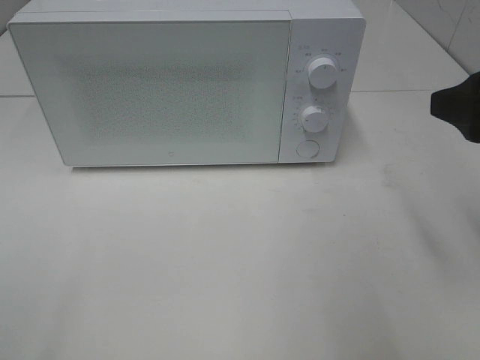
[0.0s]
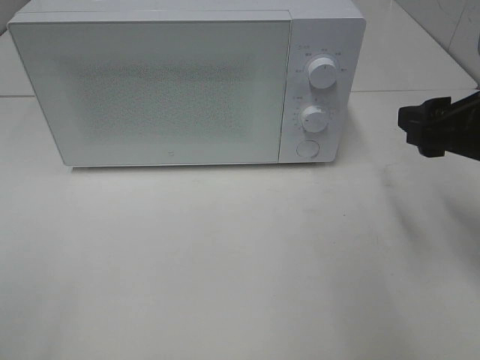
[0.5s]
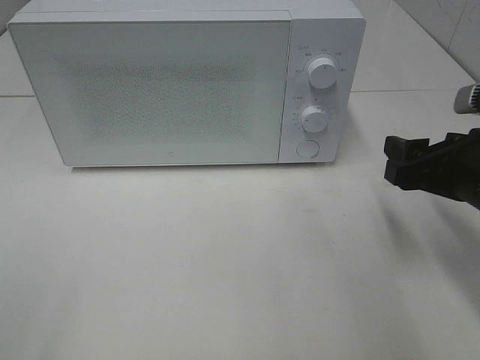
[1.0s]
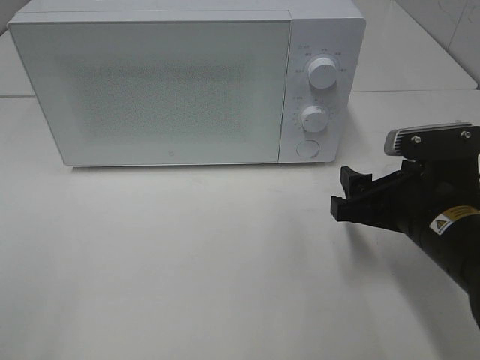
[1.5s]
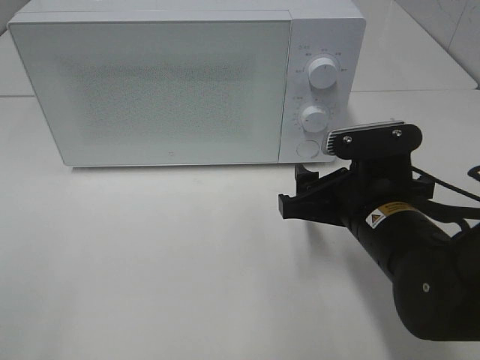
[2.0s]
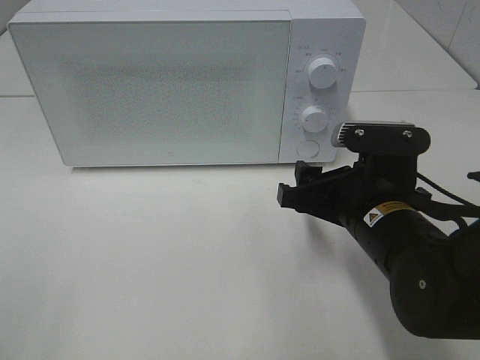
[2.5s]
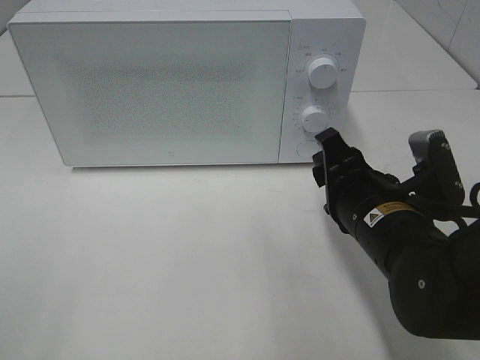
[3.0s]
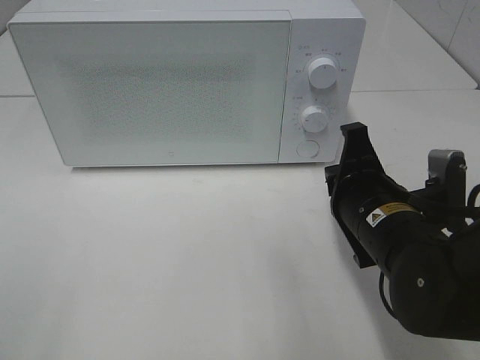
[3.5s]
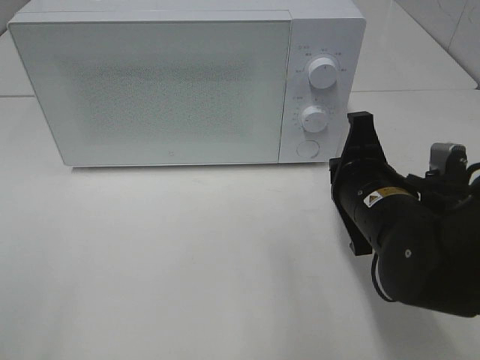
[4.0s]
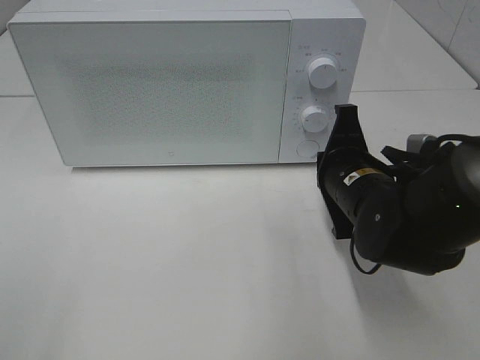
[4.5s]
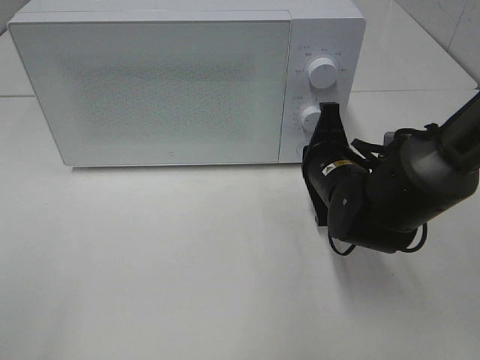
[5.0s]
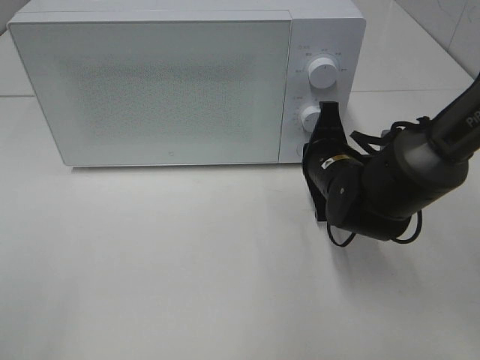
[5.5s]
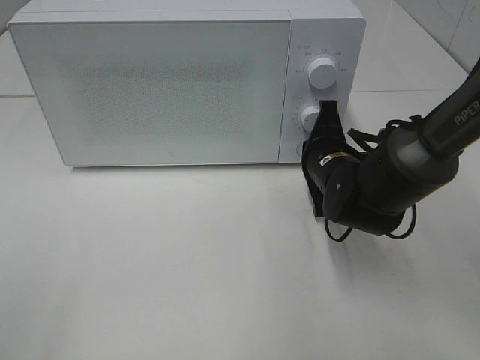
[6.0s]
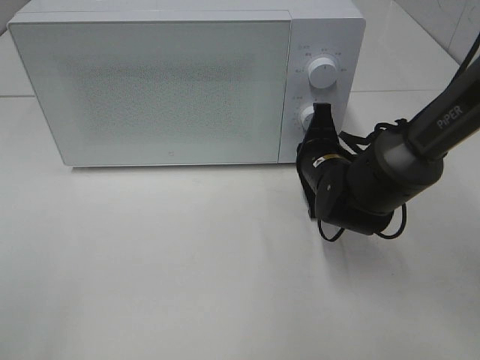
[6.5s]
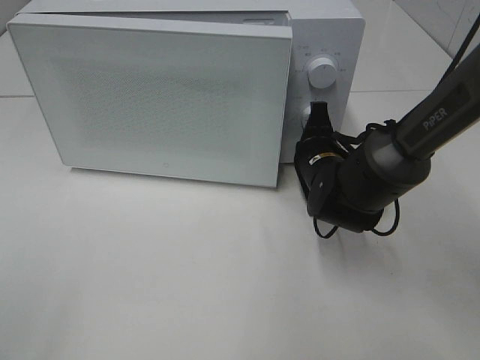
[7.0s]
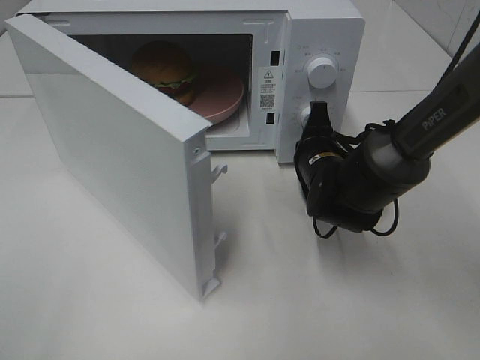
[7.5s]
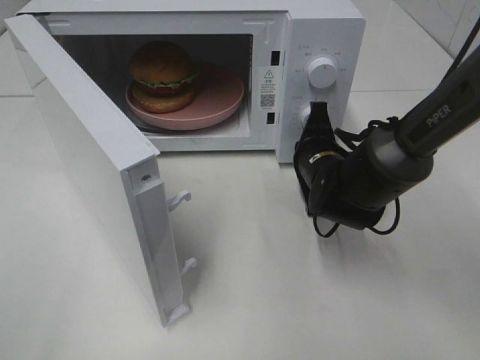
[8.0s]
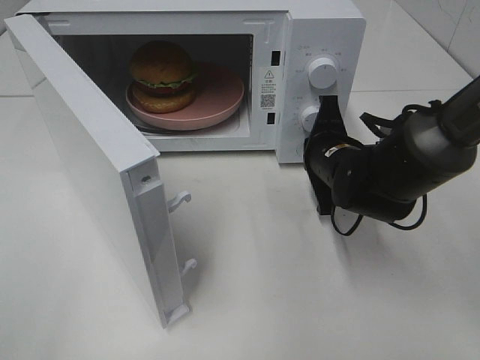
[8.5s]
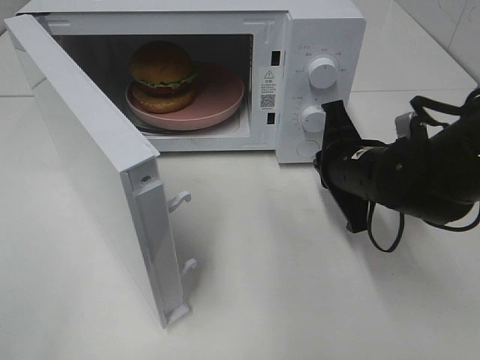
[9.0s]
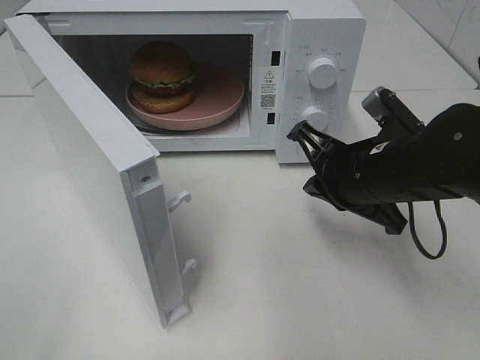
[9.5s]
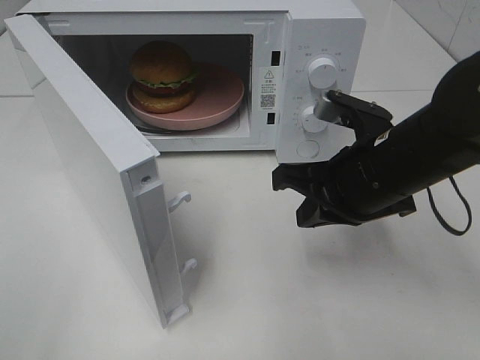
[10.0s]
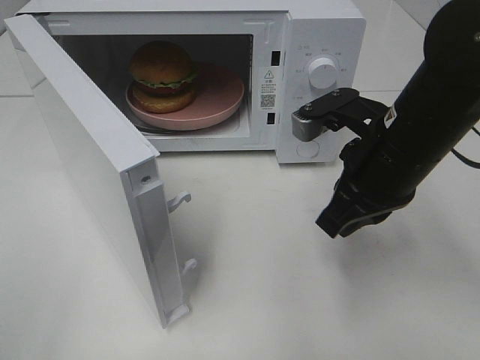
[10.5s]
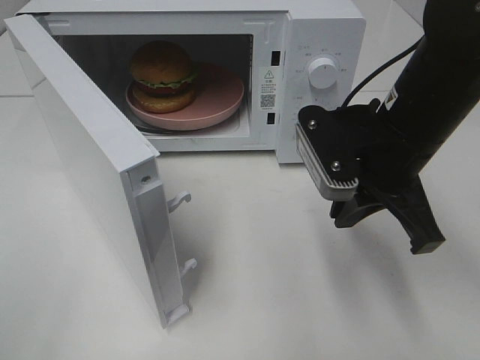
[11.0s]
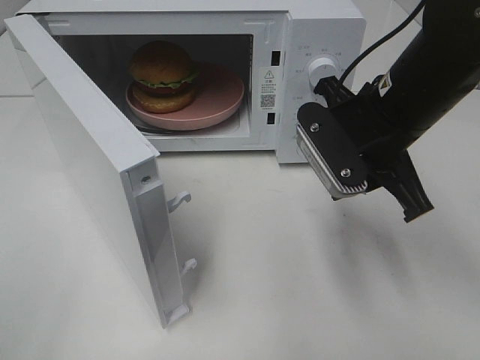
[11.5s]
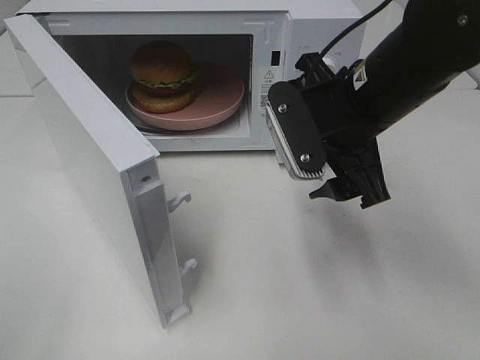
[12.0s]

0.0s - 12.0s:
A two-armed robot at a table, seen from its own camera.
Task of the whole recording: Heat the burger.
Step, 0.0s - 8.5s: Right hand: press the switch.
0.0s - 2.0s: The right gripper shifts some 20 cm downward and to the left.
2.0s - 4.0s: The right gripper closes its fingers.
4.0s - 6.0s: The right gripper goes roughly 10 cm forward.
8.0s - 10.0s: The right gripper shifts about 15 cm backward and upward.
10.0s - 12.0s: The right gripper shifts roughly 5 cm upward, and opens its fingers.

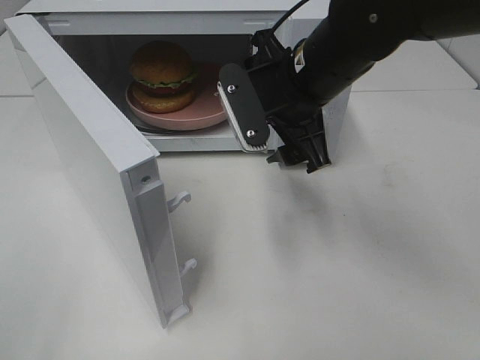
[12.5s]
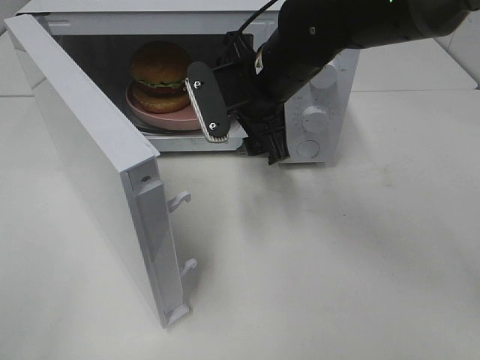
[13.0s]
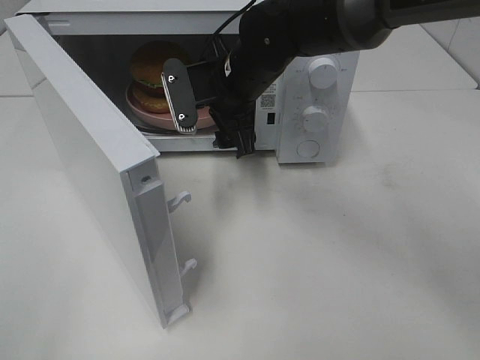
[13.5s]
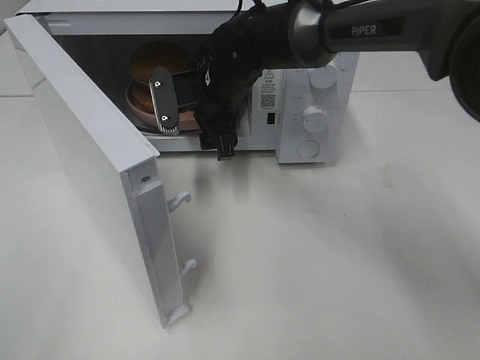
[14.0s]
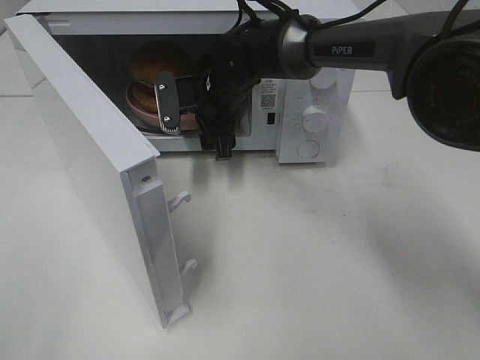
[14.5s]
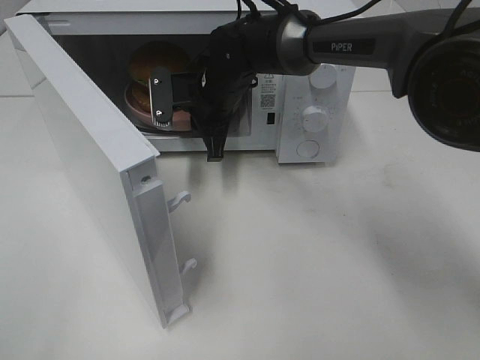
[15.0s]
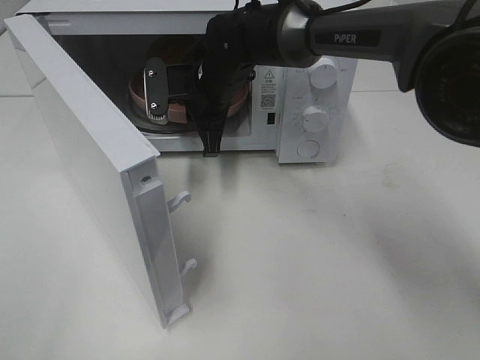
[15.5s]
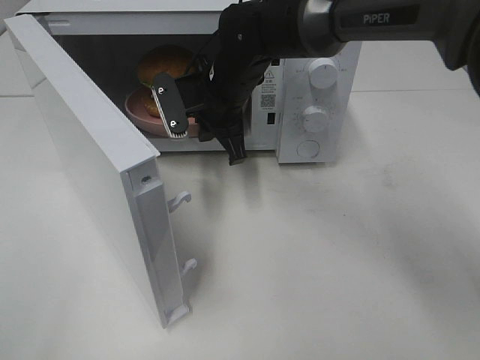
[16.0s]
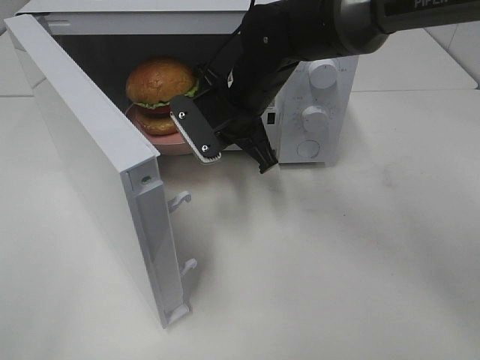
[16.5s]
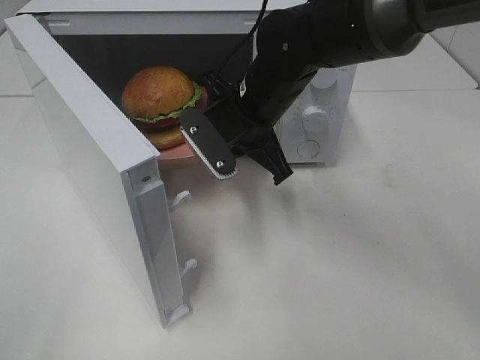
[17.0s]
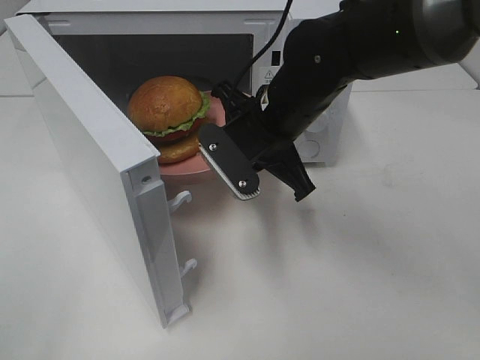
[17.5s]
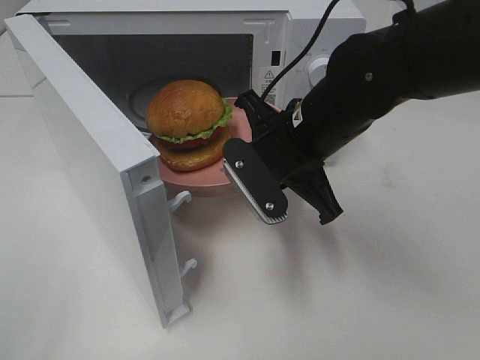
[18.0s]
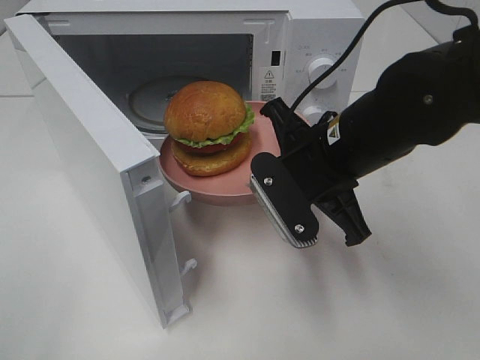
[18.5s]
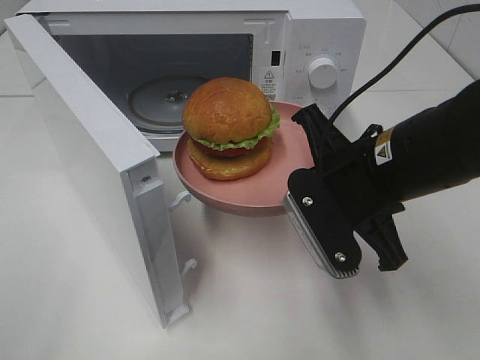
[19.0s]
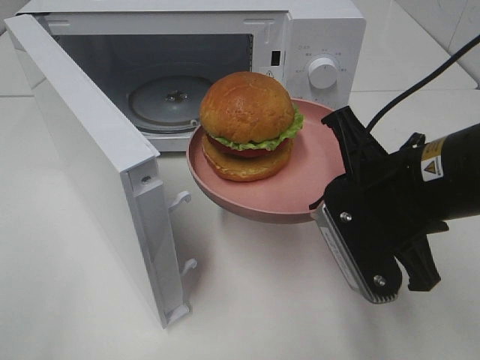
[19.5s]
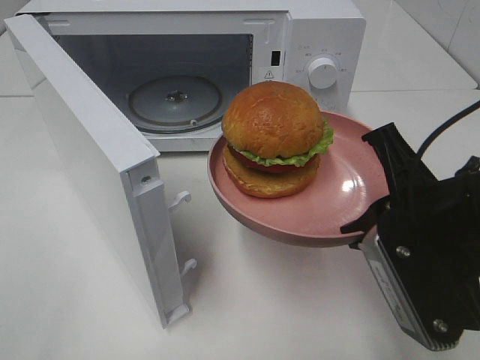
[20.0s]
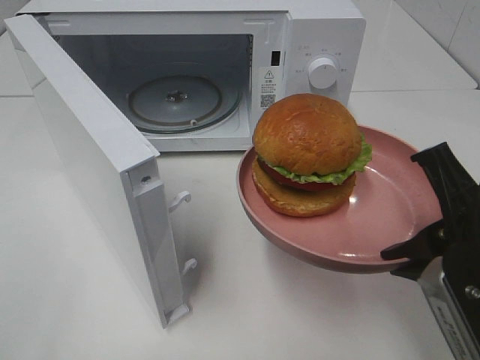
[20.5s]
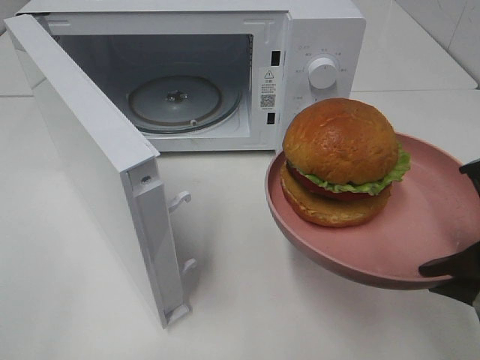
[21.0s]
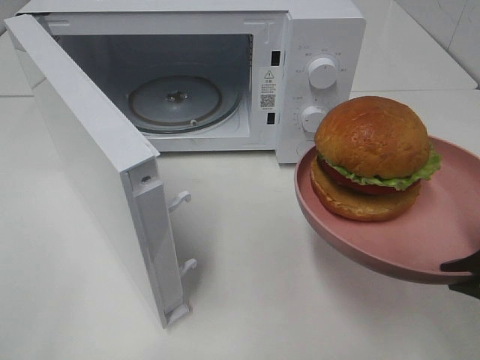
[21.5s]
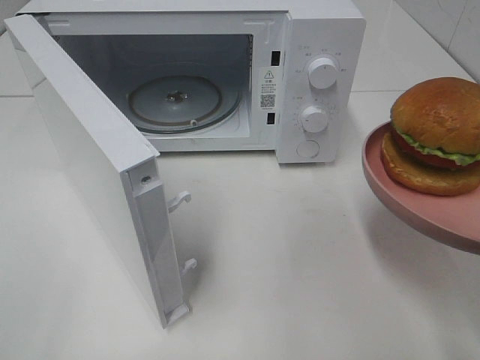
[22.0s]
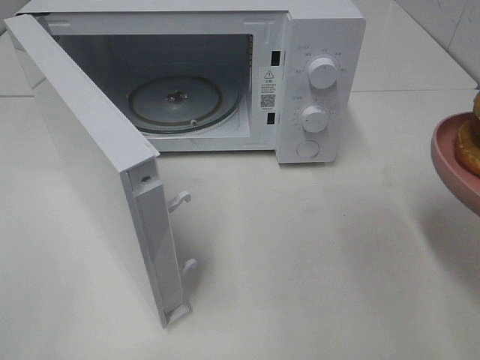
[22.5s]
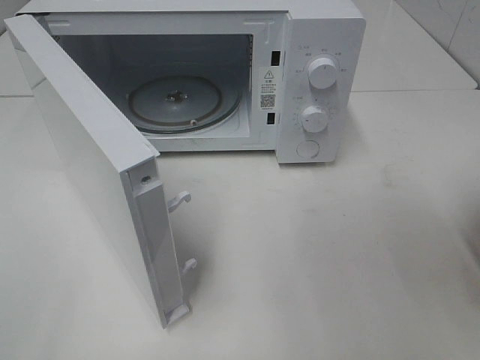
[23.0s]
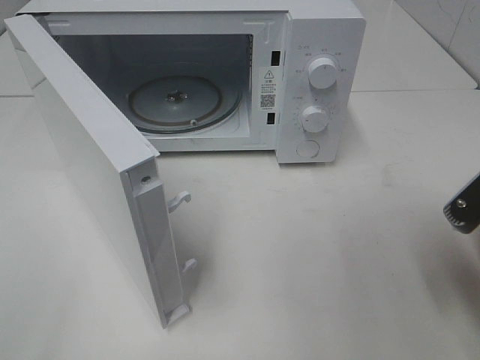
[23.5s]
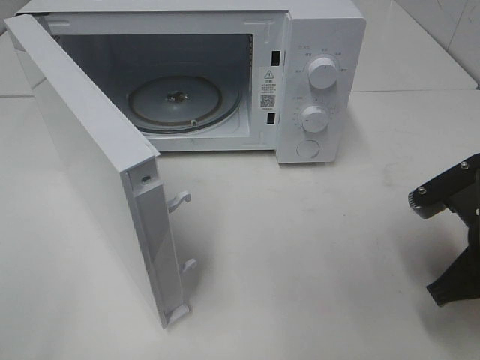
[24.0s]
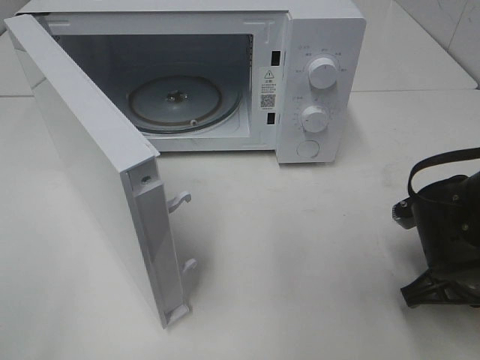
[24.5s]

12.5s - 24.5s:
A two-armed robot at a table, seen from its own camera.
Task of the whole recording: Heat the burger.
Step, 12.5s - 15.0s: Right hand: grab the plate with the hamburger.
12.5s - 14.5s: The right gripper shifts about 20 cm forward, downward and to the left.
14.5s - 16.5s: The right gripper shifts roughly 5 cm backward, and closes.
16.5s - 18.5s: The right gripper is displaced backward and to the right by some 15 cm.
18.5s - 20.5s: The right gripper heads backward and to the right, covering roughly 15 cm.
20.5s - 22.5s: The right gripper is displaced to the right by approximately 5 cm.
22.5s - 24.5s: The right gripper is displaced downward and forward by approximately 15 cm.

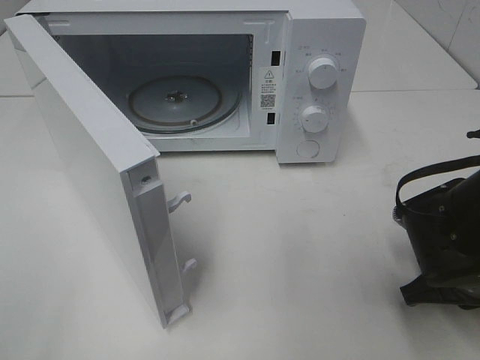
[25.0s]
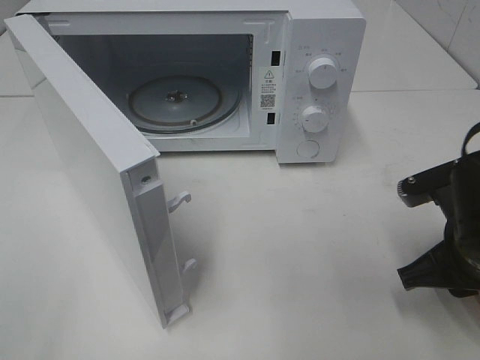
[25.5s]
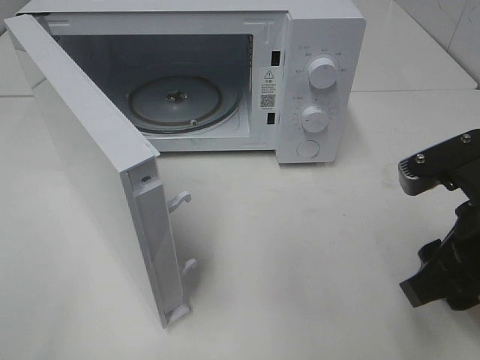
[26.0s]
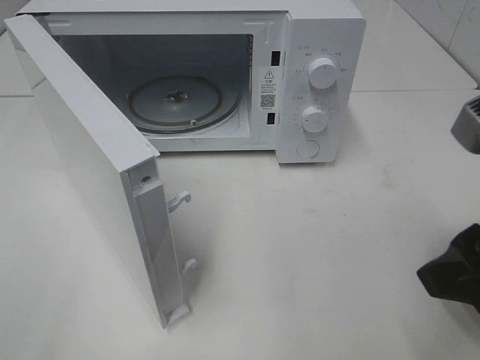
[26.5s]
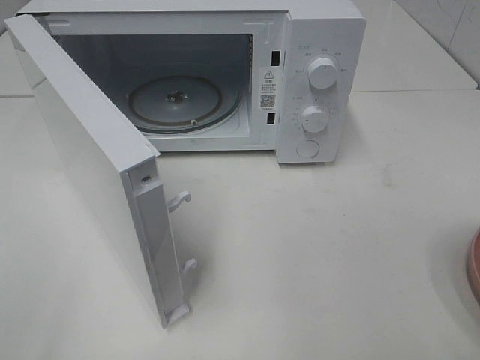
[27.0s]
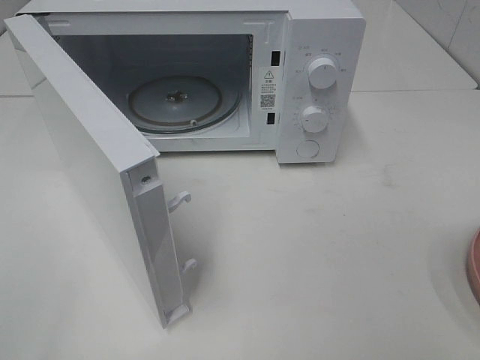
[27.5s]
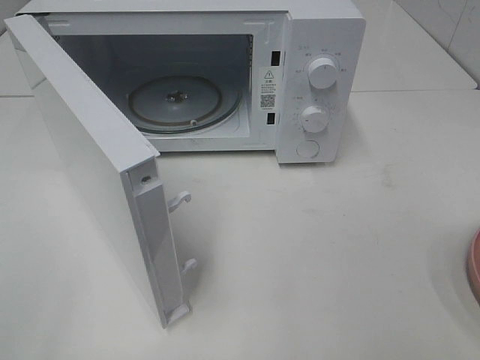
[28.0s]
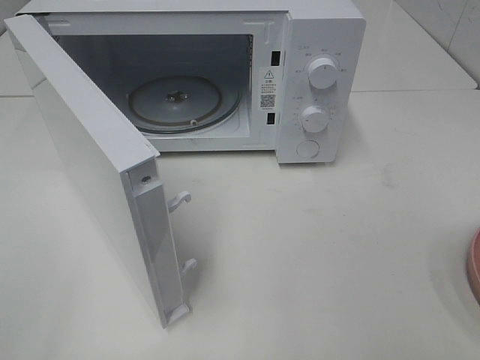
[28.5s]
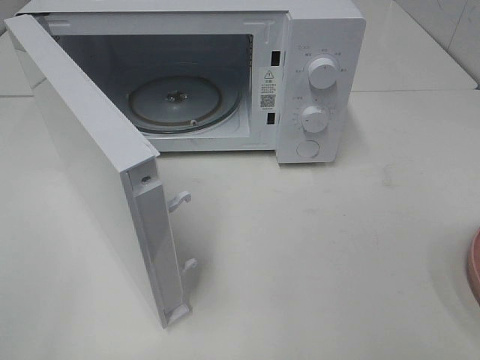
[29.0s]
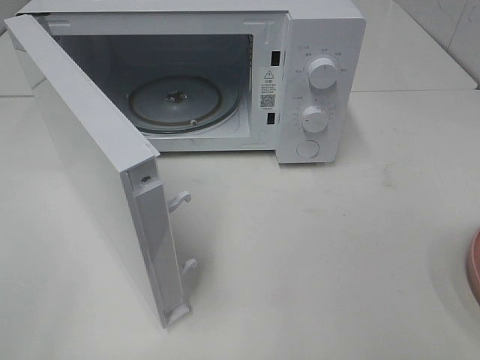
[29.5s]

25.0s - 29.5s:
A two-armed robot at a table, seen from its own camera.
Task of the whole recording: Heat the burger.
25.0s - 27.0s: The right gripper heads upward and backward, covering roughly 25 cm, and opens up.
